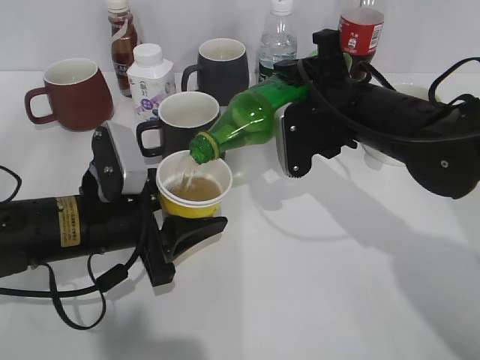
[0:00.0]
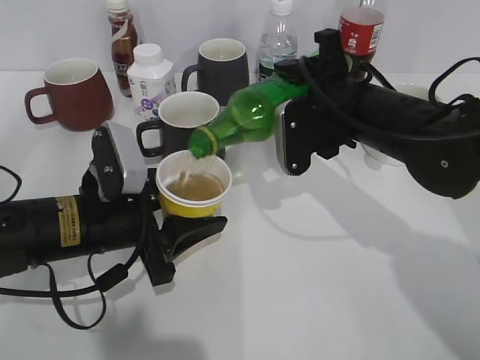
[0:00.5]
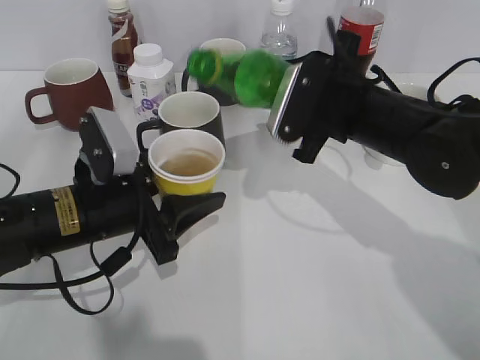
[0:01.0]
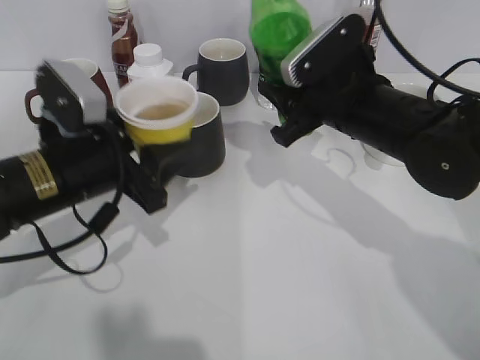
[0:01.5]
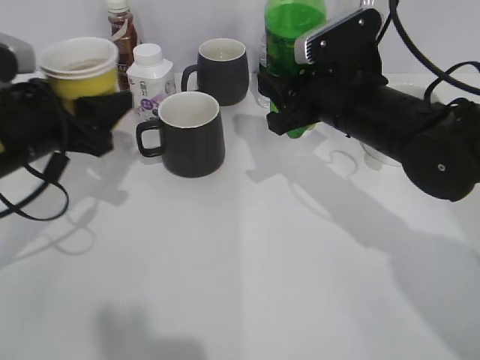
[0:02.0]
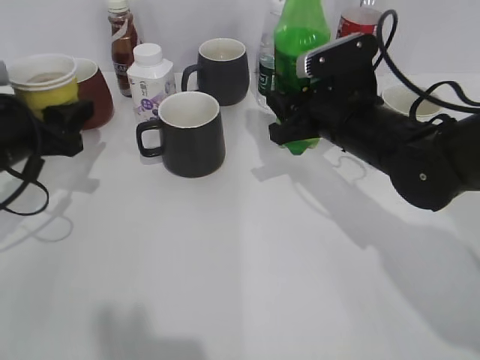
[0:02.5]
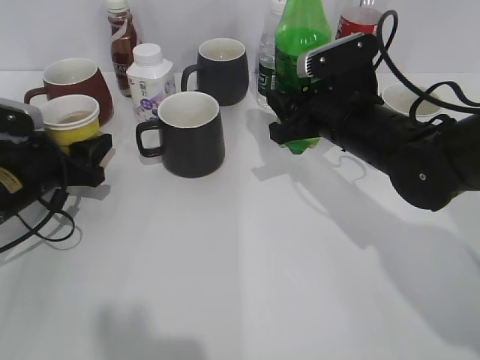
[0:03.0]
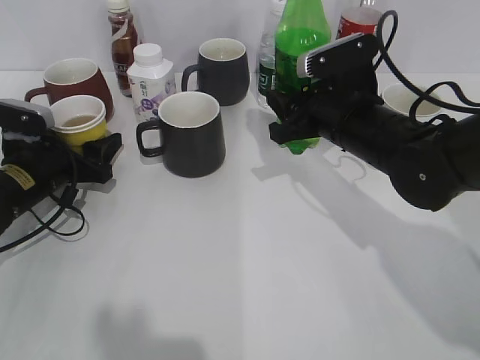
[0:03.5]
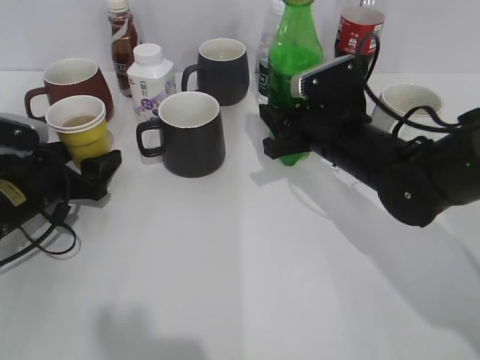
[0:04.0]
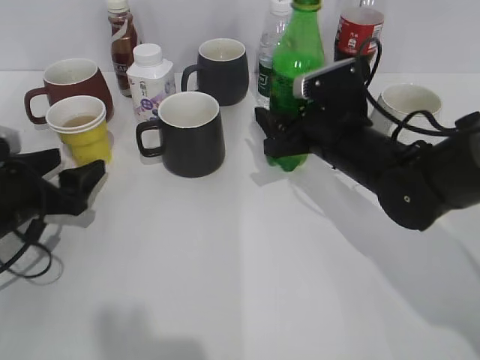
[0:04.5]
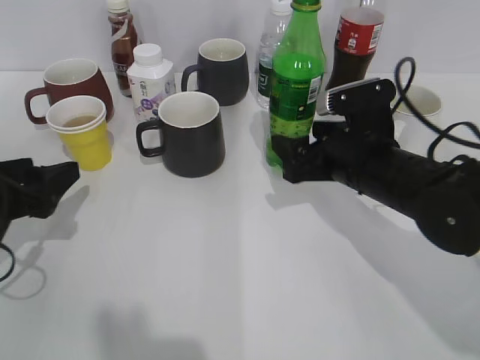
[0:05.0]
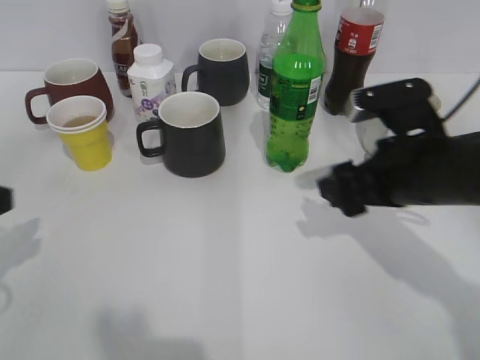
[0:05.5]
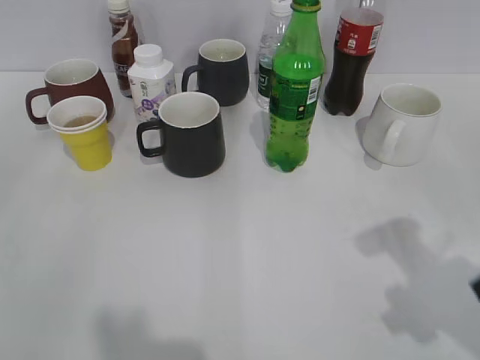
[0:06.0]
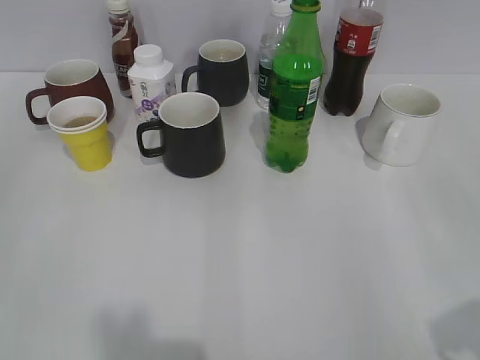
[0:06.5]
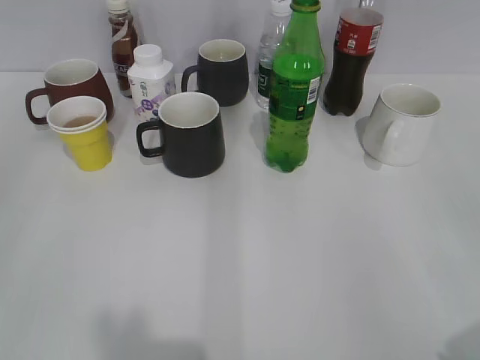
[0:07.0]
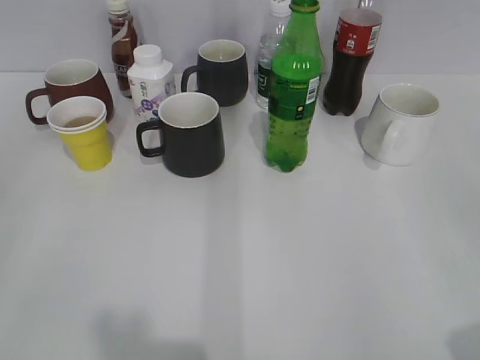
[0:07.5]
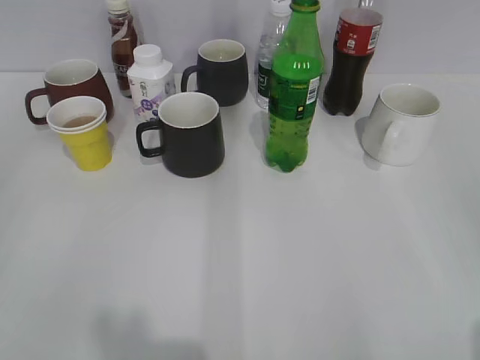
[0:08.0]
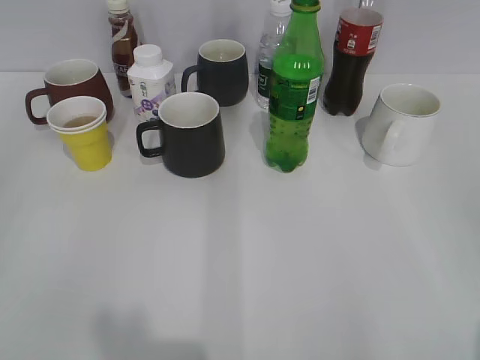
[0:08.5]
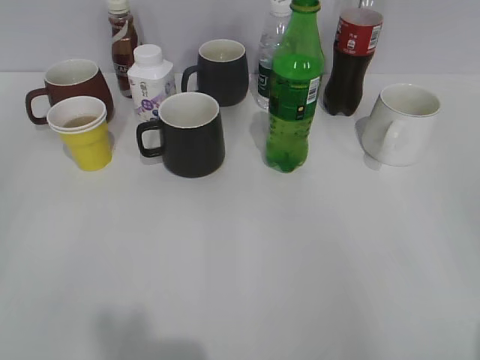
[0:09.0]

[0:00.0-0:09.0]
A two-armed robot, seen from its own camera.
Step, 0:01.5 to 0:03.0: Place the yellow paper cup on the table with left gripper.
Step, 0:03.5 to 0:04.5: Place the sprite bottle on the table with right gripper.
0:00.0 to 0:02.0: The left gripper moves upward and to the left, roughly 10 cm.
0:02.0 to 0:04.5: The left gripper shifts about 10 cm downward, and opens its fingers, while the right gripper heads downward, covering some 5 cm, and opens its fingers.
0:04.5 to 0:07.0: The right gripper heads backward, to the right and upward, covering about 40 cm, while the left gripper travels backward and upward by some 30 cm, and closes.
